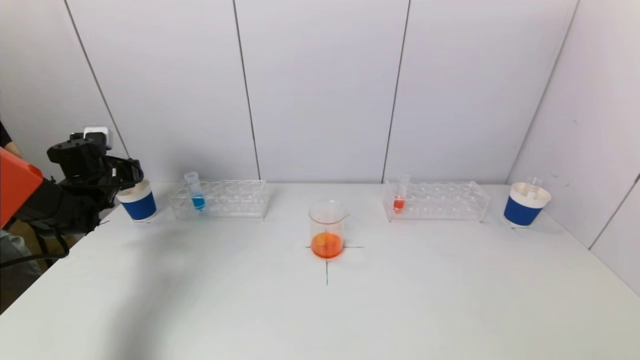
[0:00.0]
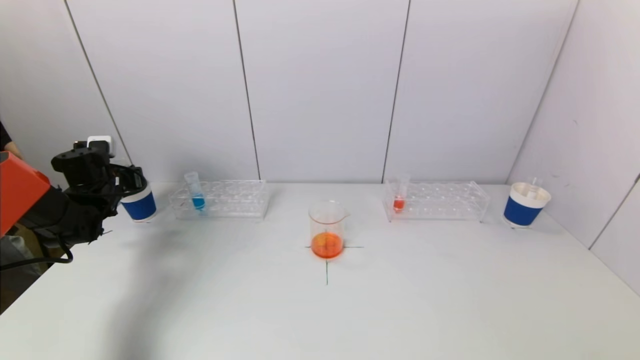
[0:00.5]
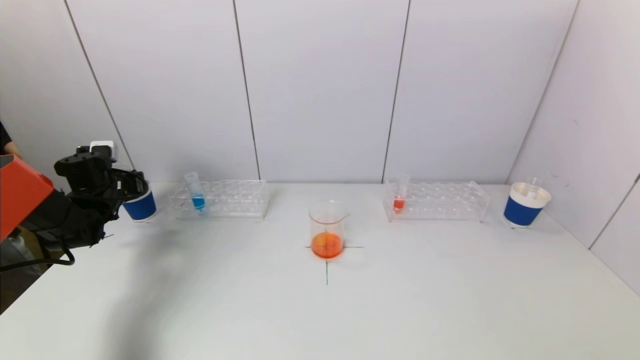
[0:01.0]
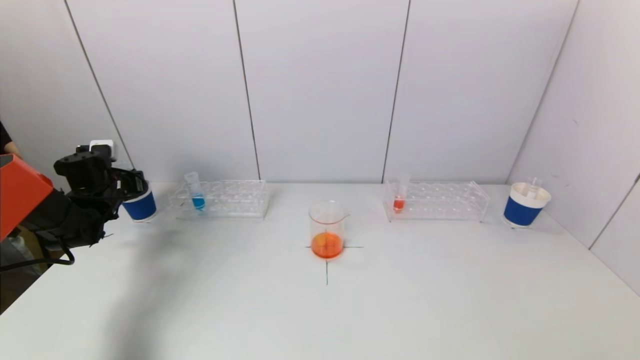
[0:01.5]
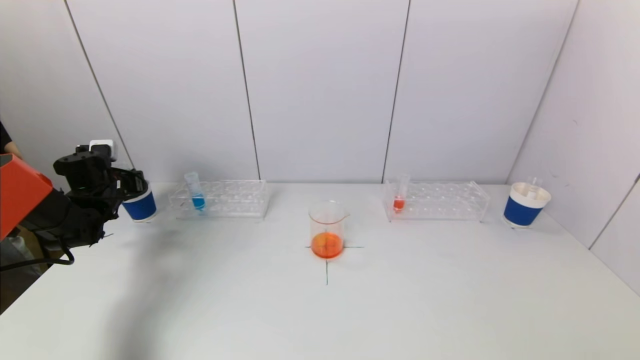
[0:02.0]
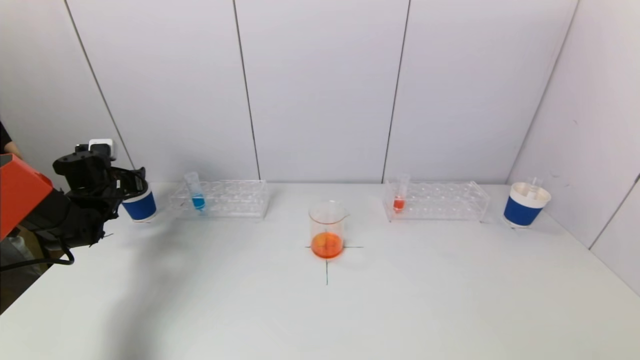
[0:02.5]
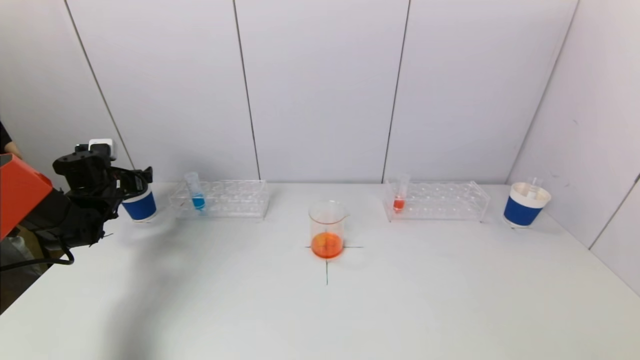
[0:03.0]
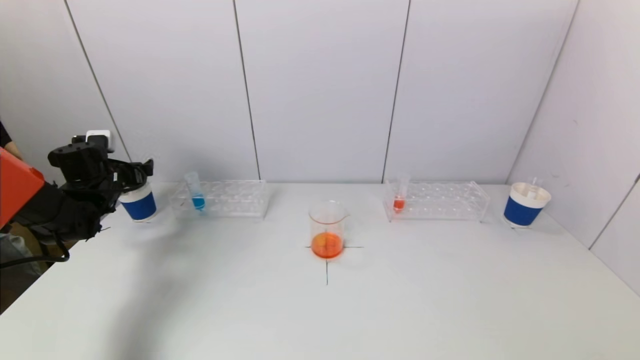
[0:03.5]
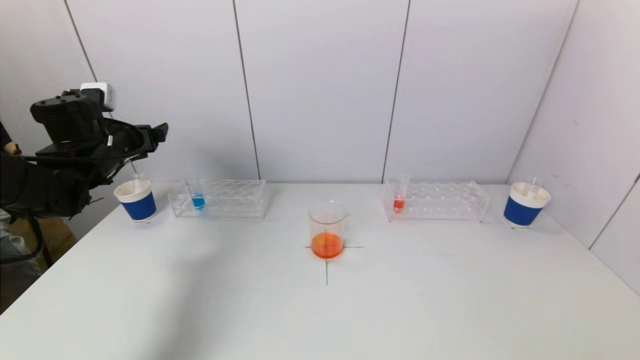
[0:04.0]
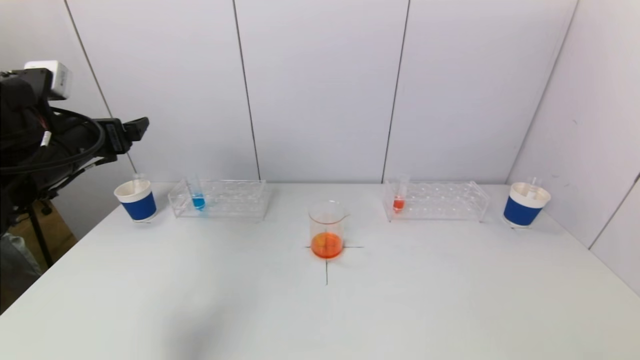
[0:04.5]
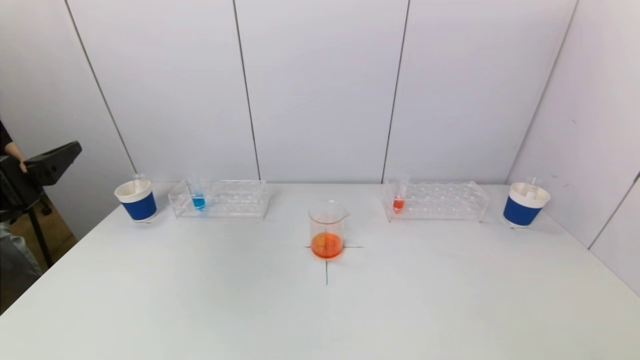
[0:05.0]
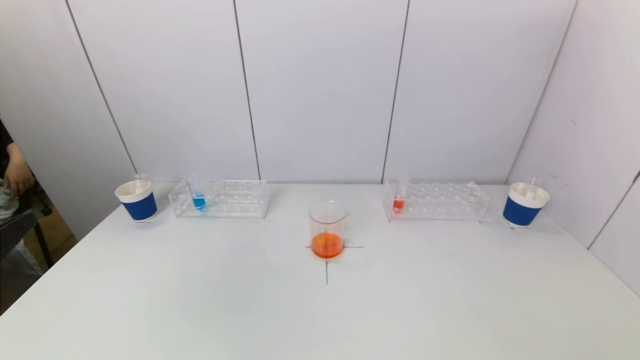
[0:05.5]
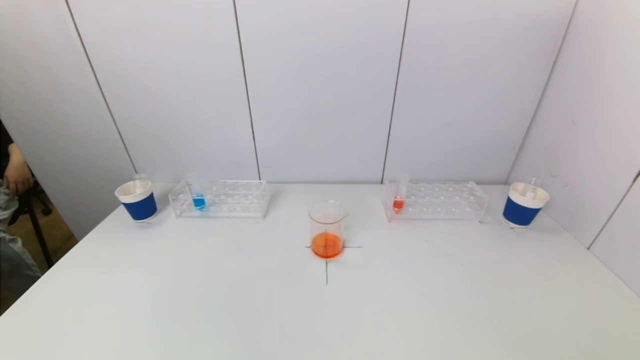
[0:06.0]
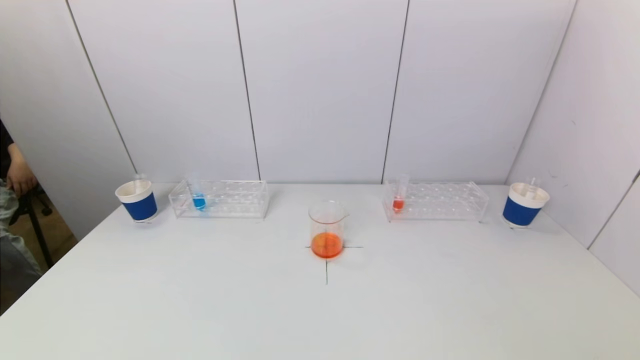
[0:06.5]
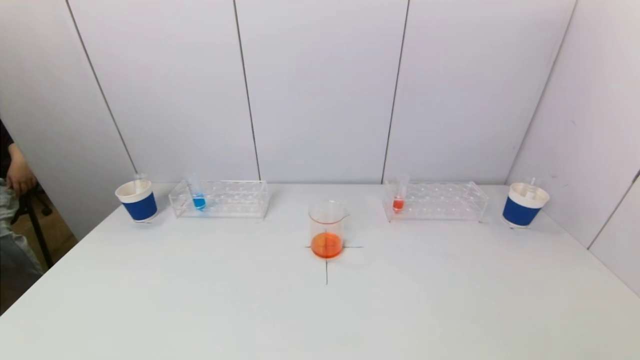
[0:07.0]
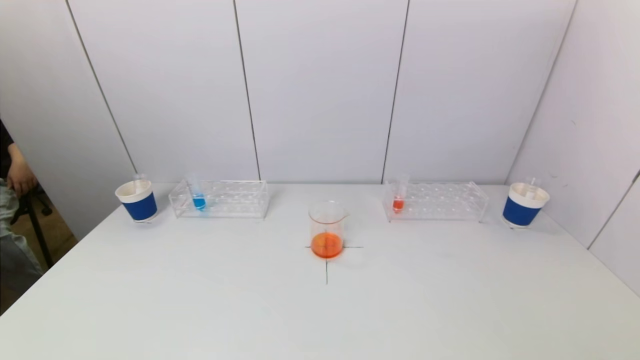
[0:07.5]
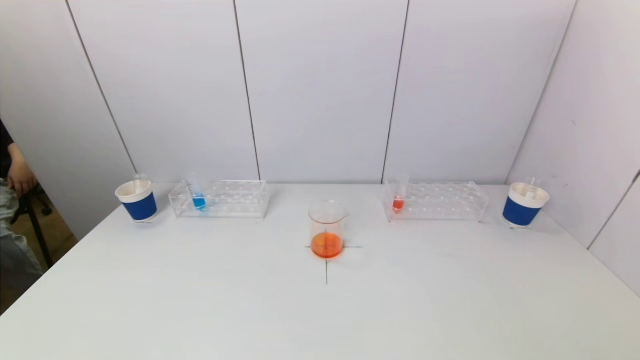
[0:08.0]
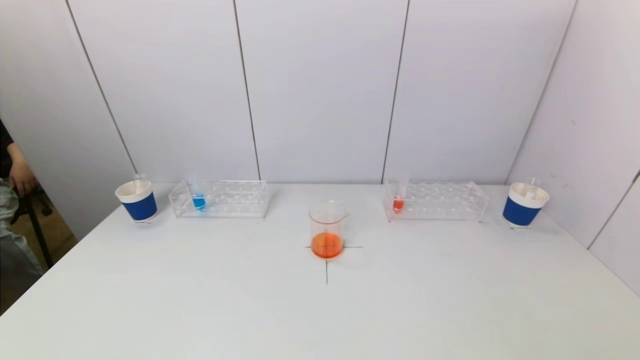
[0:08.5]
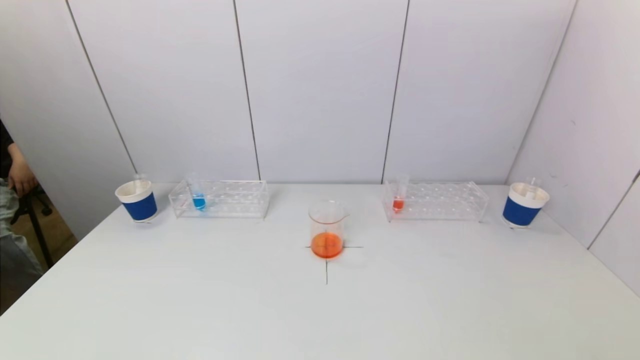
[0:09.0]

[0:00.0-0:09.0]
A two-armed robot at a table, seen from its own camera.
Task of the whole recording: pick up a test tube with pigment on left test tube rack and a test tube with pigment on right test tube rack by grippers and pour them into the beaker.
Step, 0:00.0 to 0:03.0: Place the test tube into the paper cup with the left gripper.
0:00.0 to 0:02.0: The grippers move only a little.
0:02.0 to 0:04.5: The left gripper heads upward, backward and to the right, covering approximately 25 cm, and opens.
0:04.5 to 0:07.0: The left gripper goes roughly 35 cm backward.
